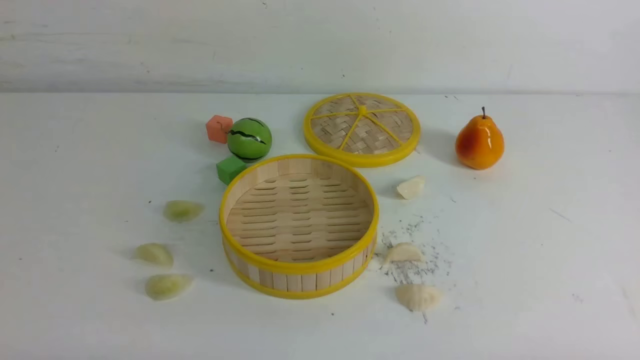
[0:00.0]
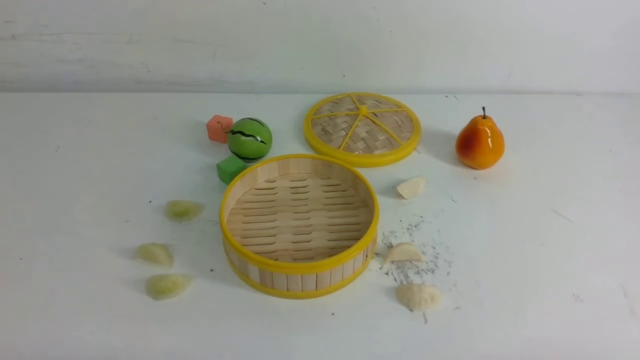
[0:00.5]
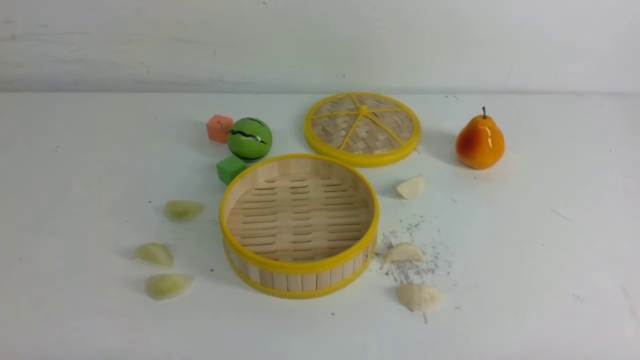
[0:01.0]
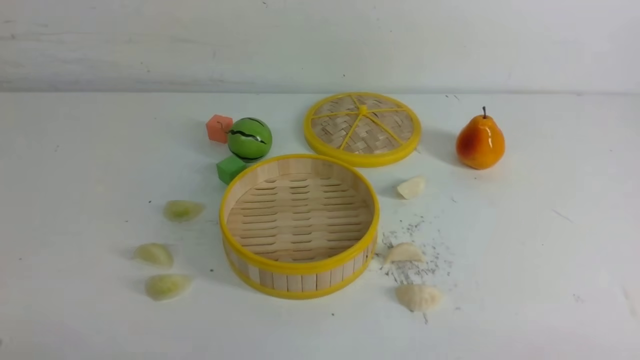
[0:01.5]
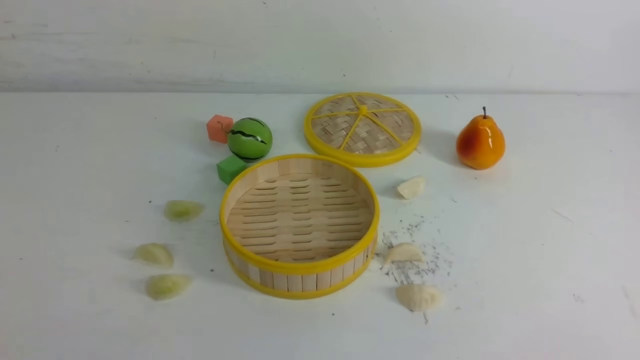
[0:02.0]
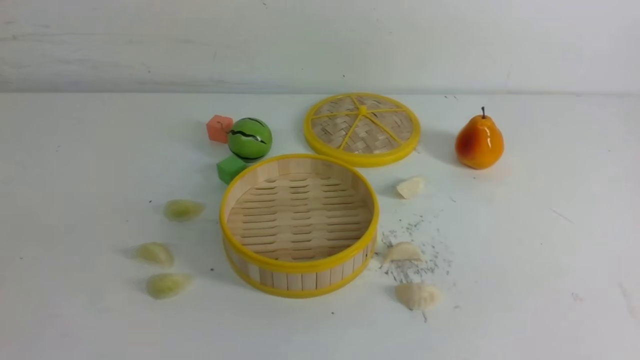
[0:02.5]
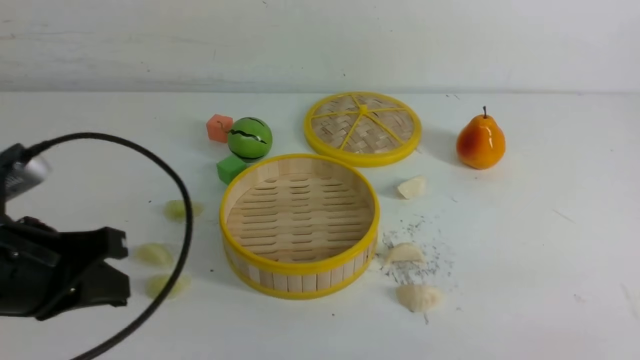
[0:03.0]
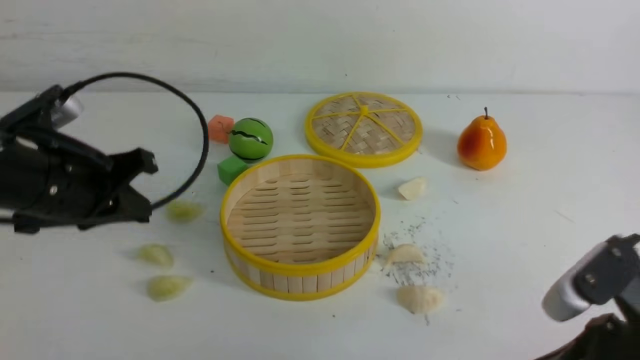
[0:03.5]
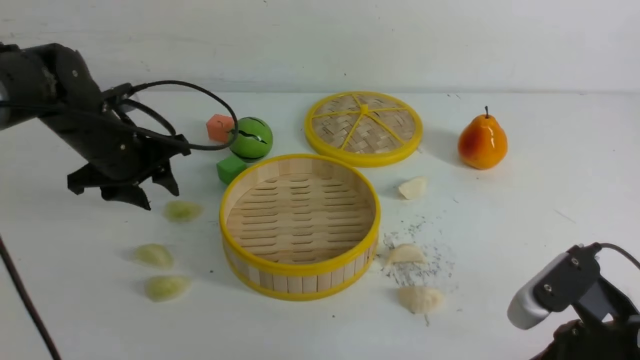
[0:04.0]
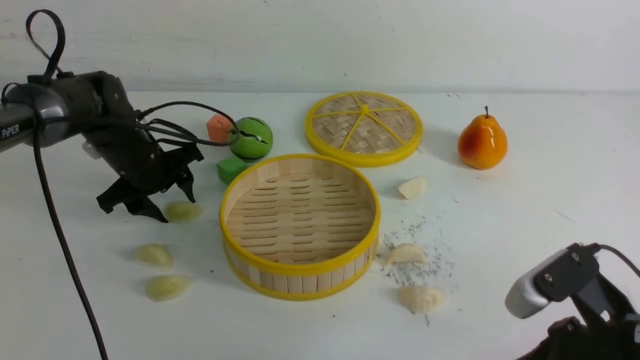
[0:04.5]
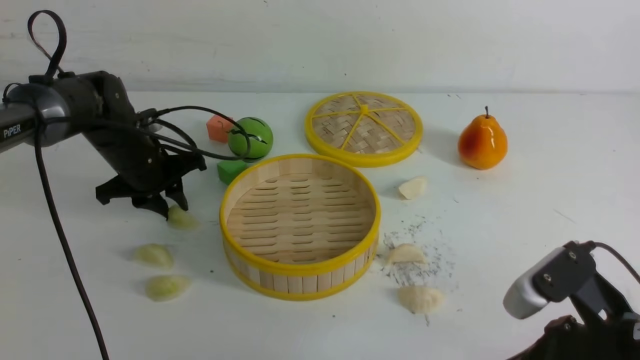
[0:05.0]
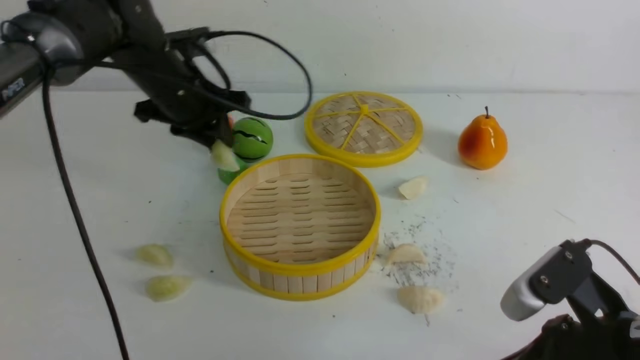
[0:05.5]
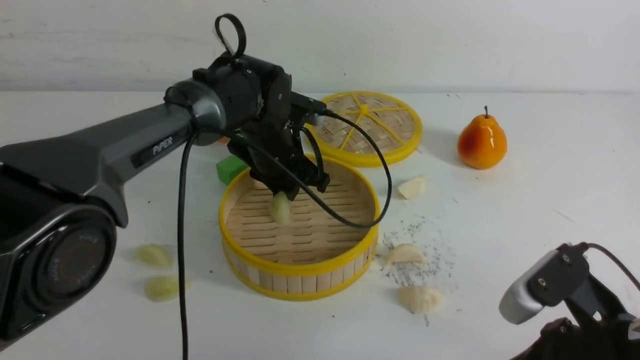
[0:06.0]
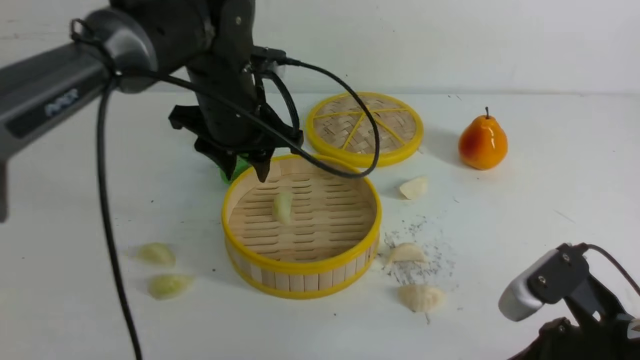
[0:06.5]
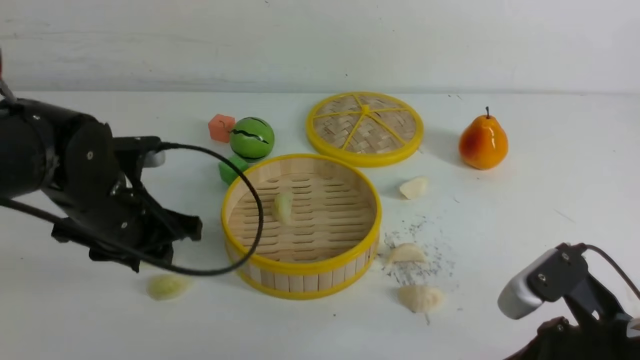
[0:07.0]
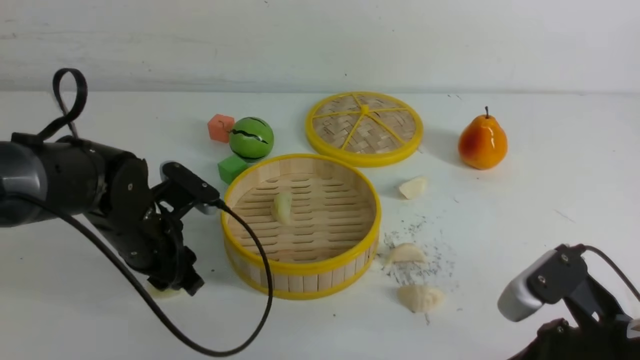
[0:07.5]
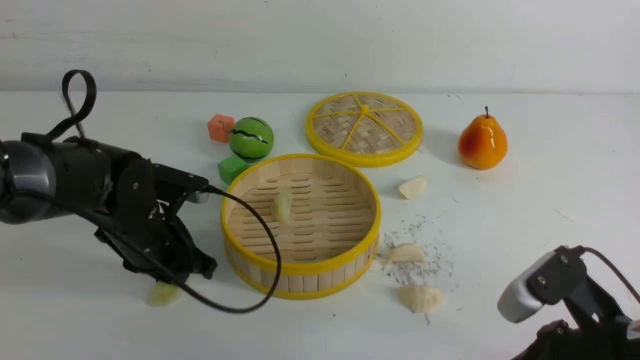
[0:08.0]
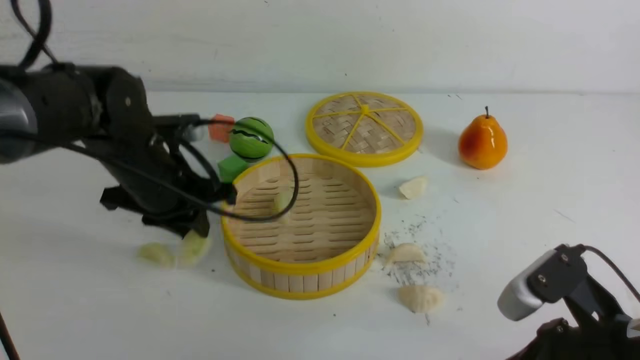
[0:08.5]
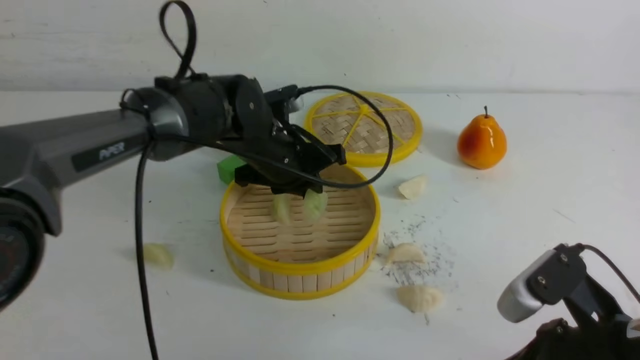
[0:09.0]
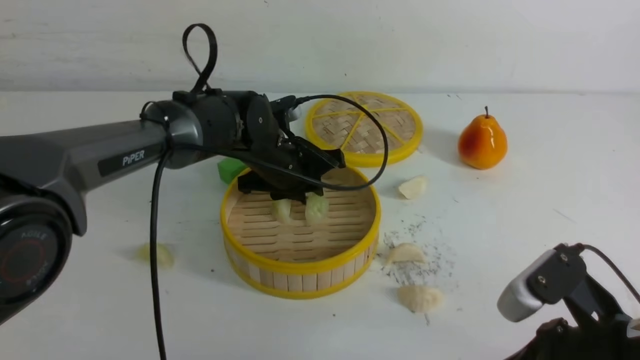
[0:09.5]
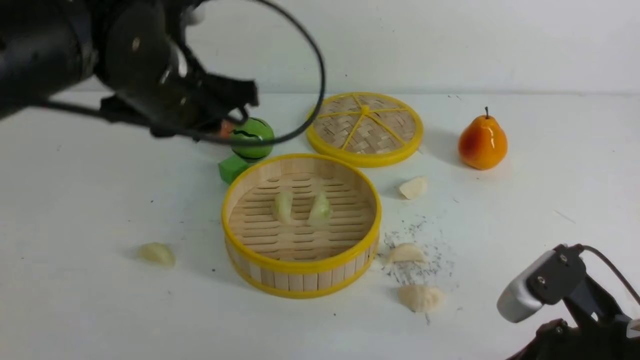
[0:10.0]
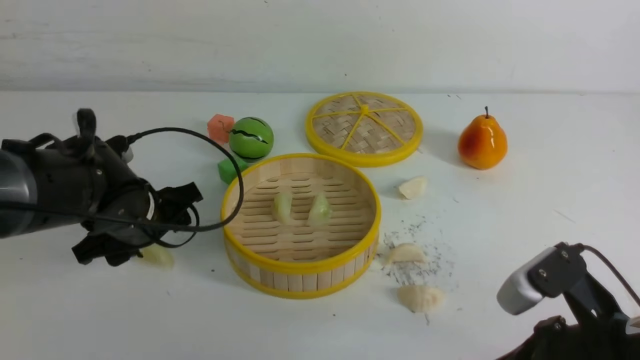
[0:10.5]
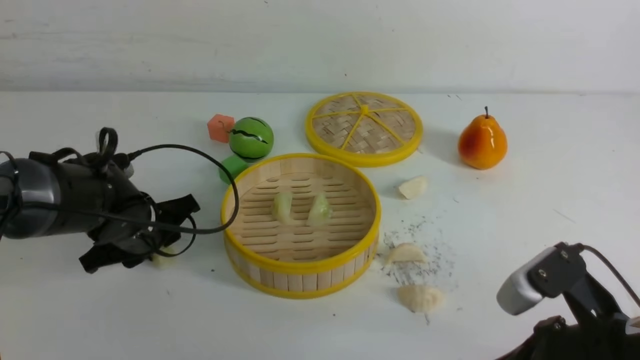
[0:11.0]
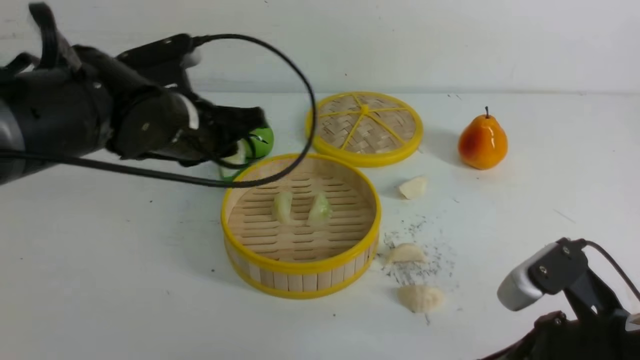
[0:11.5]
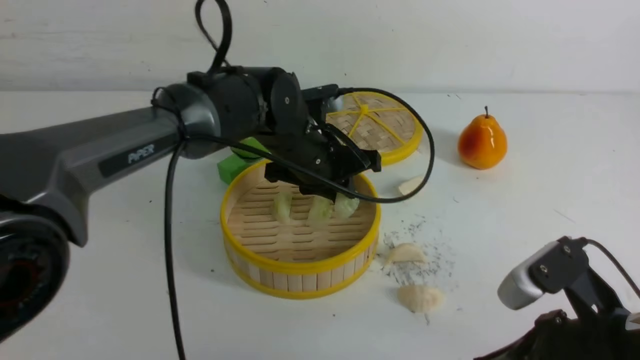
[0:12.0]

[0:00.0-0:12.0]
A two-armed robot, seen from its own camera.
Task of the whole recording: put the dumplings into the steamer on the white table.
Step, 0:00.0 to 0:05.0: use the left arm to grab a dumpling.
Step, 0:05.5 to 0:06.0: use the left arm to put the dumpling into the steamer.
Step, 0:06.5 to 0:08.0: use the left arm to grab a dumpling.
Step, 0:08.5 to 0:09.0: use the left arm to put the dumpling into the steamer.
Step, 0:09.5 to 0:10.5: use the left arm to grab a dumpling.
0:02.0 to 0:04.0: The left gripper is displaced forward by about 40 cm, and opens. Meanwhile the right gripper shifts approximately 20 cm forward, to the left and downward.
0:04.0 to 0:06.0: The left gripper shifts about 15 cm to the right.
0:06.0 to 0:08.0: The left gripper travels to the left and backward by roughly 15 cm.
0:08.0 to 0:10.0: The left gripper travels upward by about 15 cm.
0:10.0 to 0:12.0: The left gripper travels to the right, downward and forward by roughly 15 cm, and opens, then closes once more.

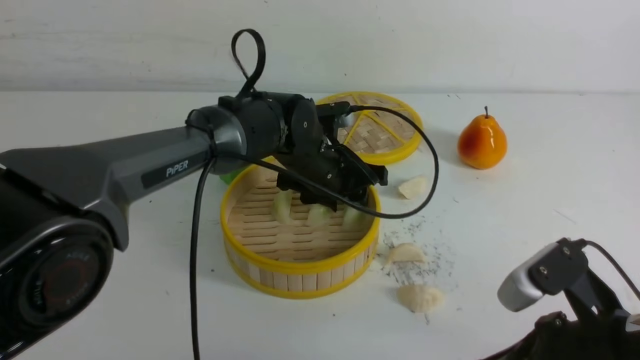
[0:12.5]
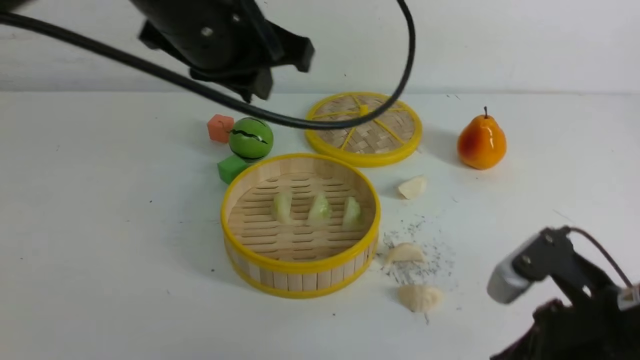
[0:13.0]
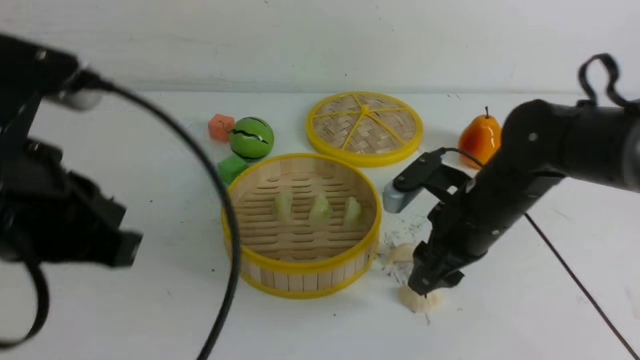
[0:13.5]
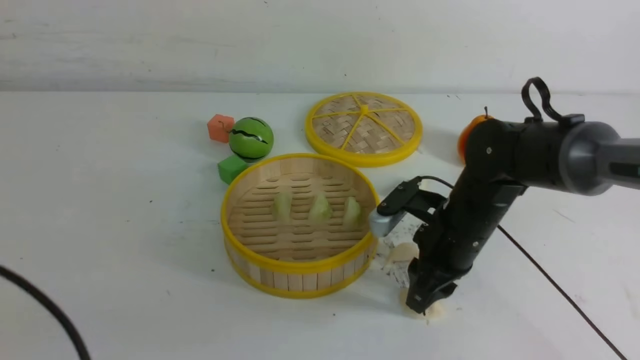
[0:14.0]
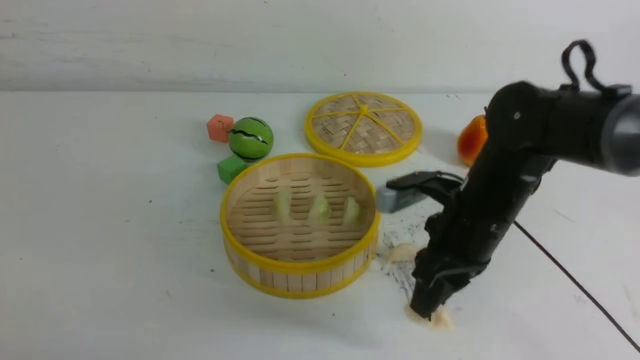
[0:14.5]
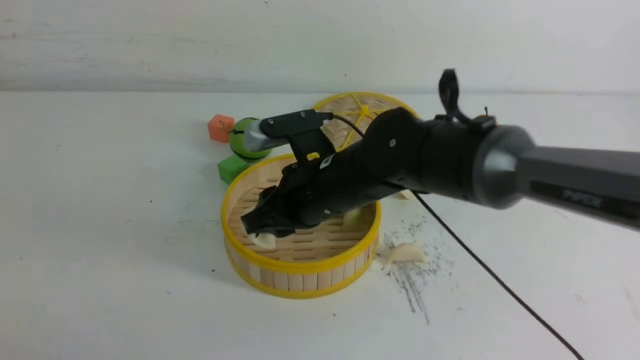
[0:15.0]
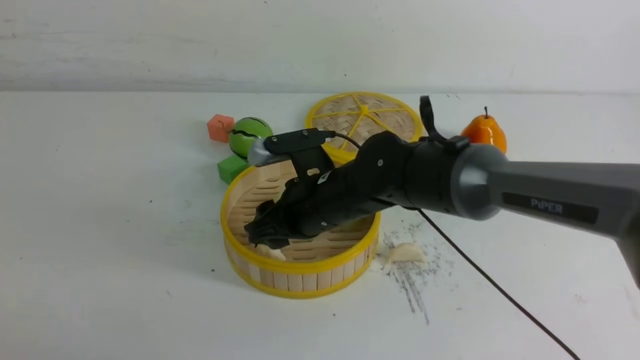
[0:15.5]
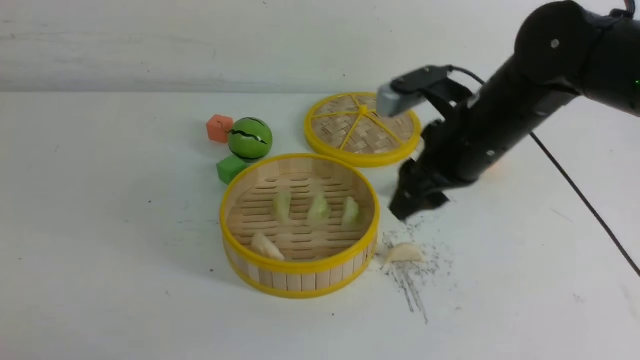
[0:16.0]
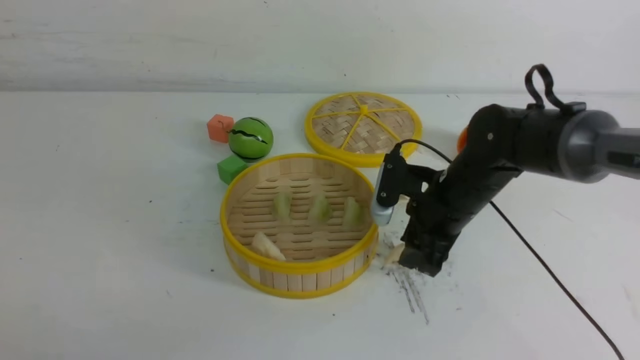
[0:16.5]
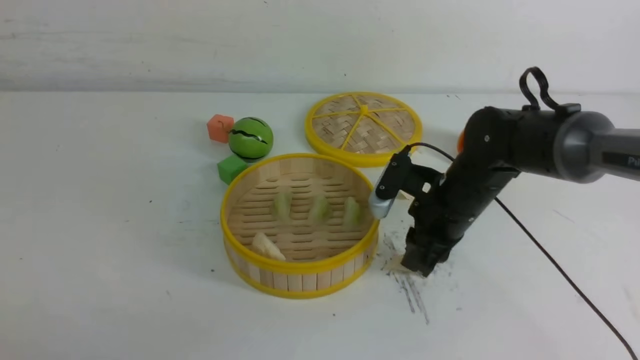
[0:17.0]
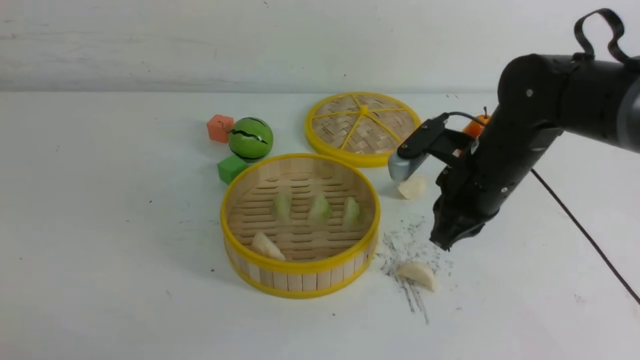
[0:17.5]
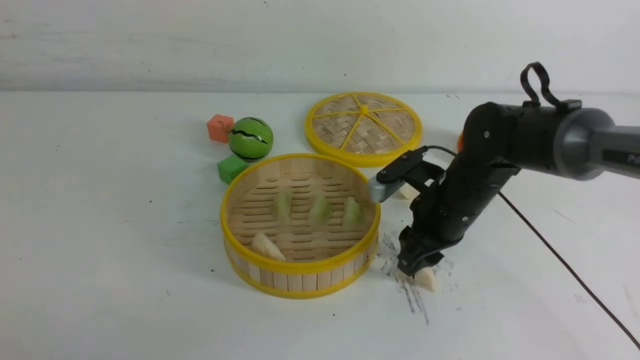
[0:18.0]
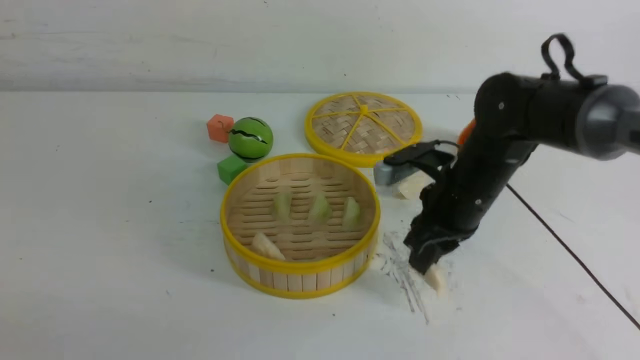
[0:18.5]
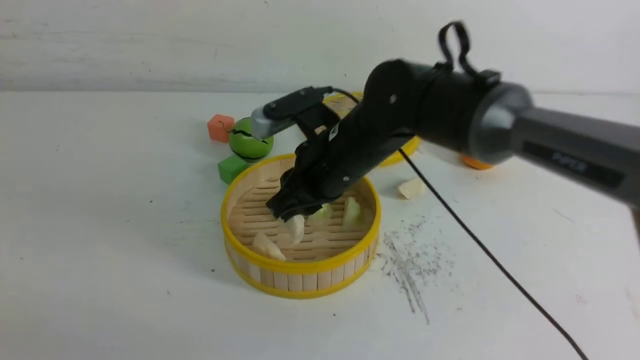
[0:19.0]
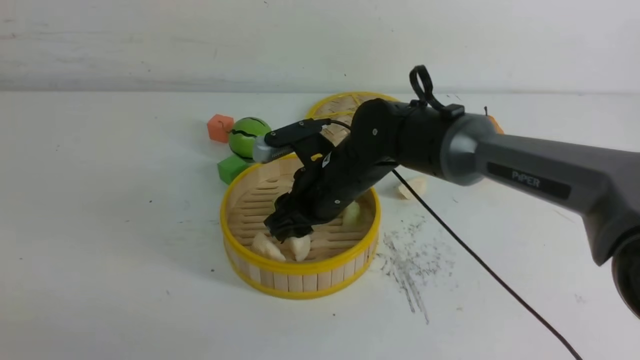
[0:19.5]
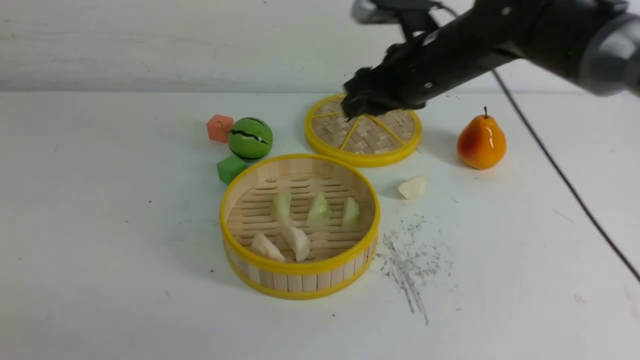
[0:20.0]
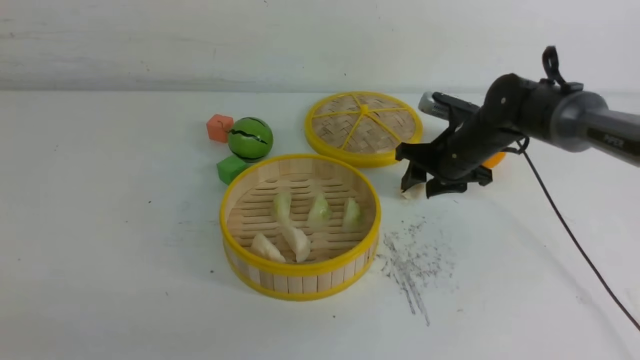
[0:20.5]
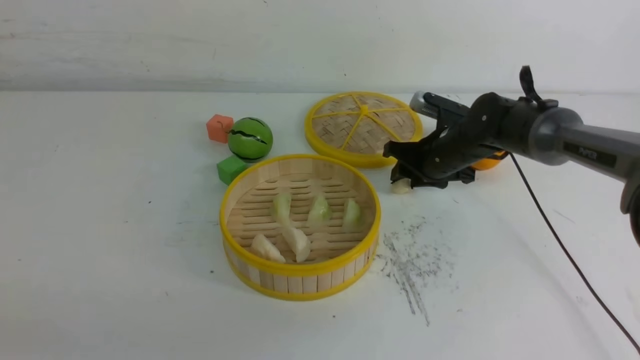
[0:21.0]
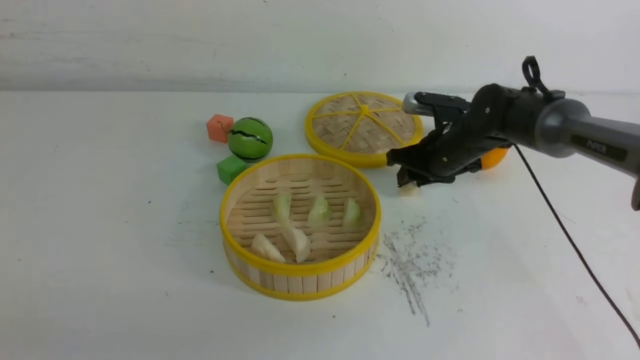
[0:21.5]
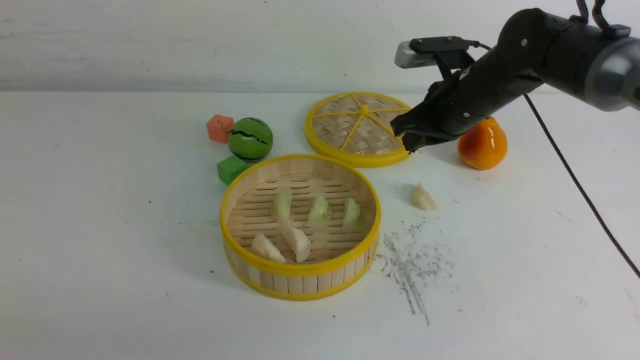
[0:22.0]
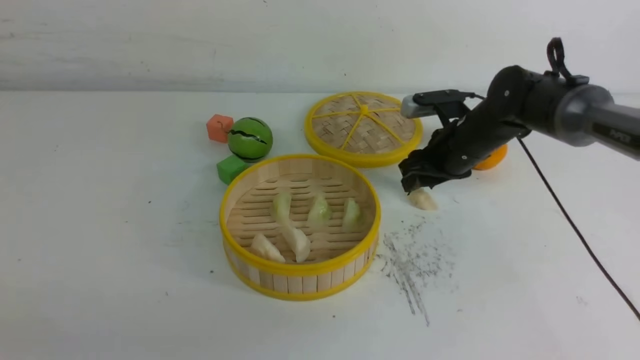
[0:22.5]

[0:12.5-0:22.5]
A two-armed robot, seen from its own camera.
Task of the whole recording: put the dumplings into the steamer on the white table.
Step, 0:12.5 to 0:14.0: use the right arm to grab a dumpling.
Step, 0:14.5 to 0:15.0: use the right arm to put the dumpling into the steamer.
Step, 0:15.5 to 0:18.0: use the right arm to grab a dumpling.
Step, 0:18.5 to 0:19.5: use the right arm to put the dumpling into the steamer.
Step, 0:20.0 to 0:21.5: use the right arm to grab a dumpling.
0:12.5 to 0:14.5: The left gripper heads backward and to the left, covering about 50 cm, and closes up; the right gripper heads forward and to the left, covering approximately 20 cm, and opens and closes again.
0:14.5 to 0:16.5: The right gripper moves forward, about 5 cm, and goes to the left and returns, approximately 10 cm each way.
0:16.5 to 0:18.5: The right gripper goes up and down, approximately 5 cm each way, reversing 2 times.
0:18.5 to 0:20.5: The right gripper heads forward, covering some 10 cm, travels to the left and back again, about 10 cm each way, and opens up.
0:20.5 to 0:22.5: The right gripper goes upward and returns, about 5 cm each way, and closes, then reopens.
